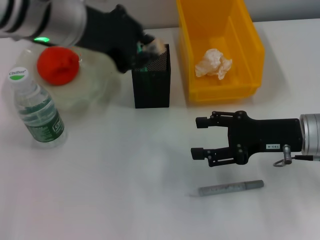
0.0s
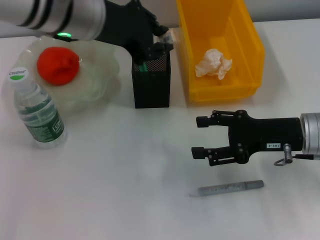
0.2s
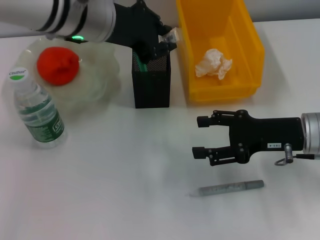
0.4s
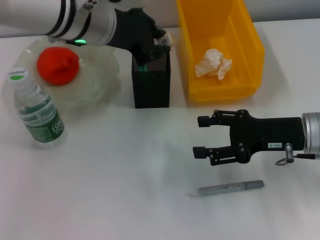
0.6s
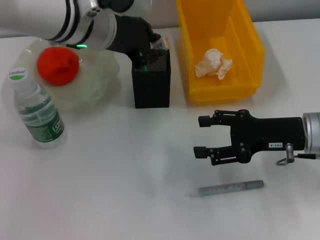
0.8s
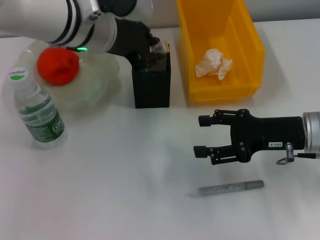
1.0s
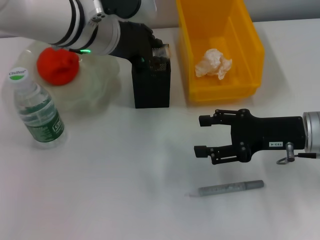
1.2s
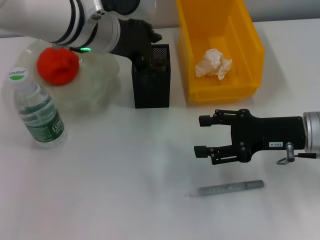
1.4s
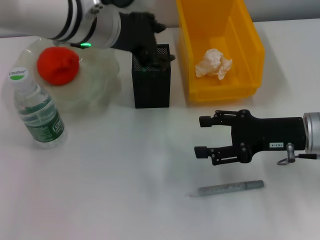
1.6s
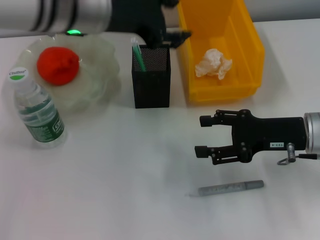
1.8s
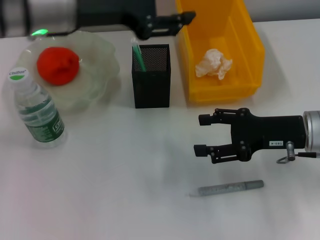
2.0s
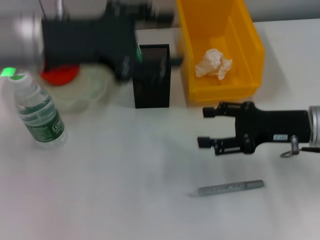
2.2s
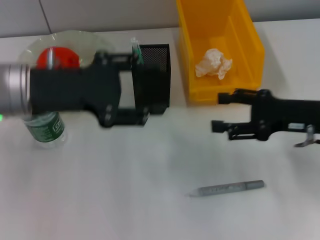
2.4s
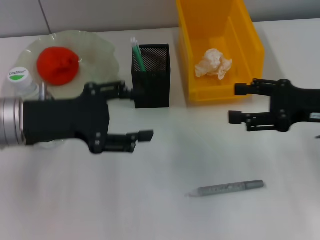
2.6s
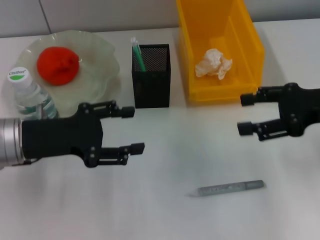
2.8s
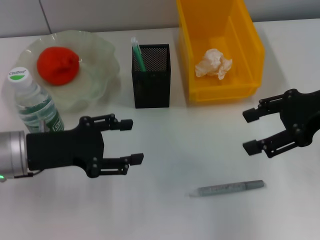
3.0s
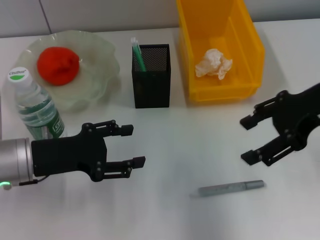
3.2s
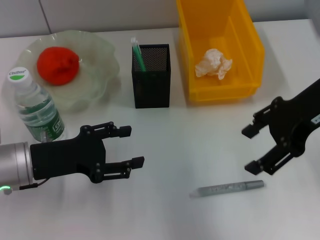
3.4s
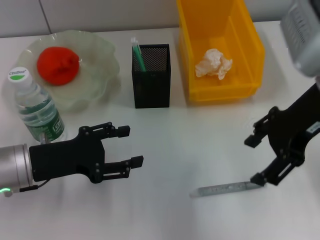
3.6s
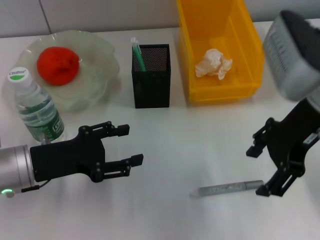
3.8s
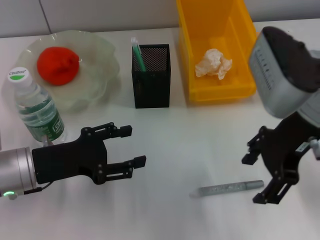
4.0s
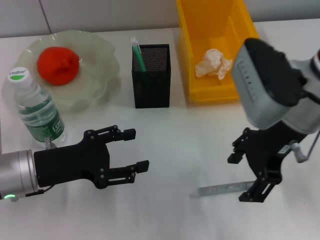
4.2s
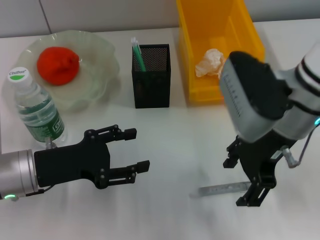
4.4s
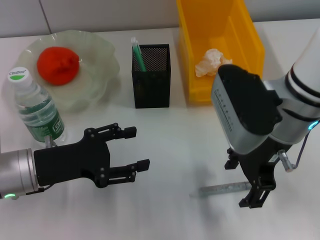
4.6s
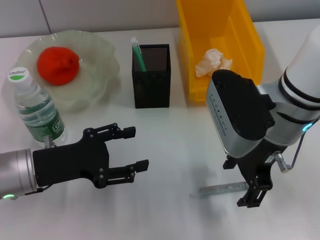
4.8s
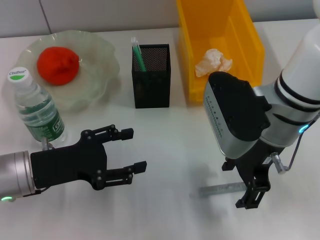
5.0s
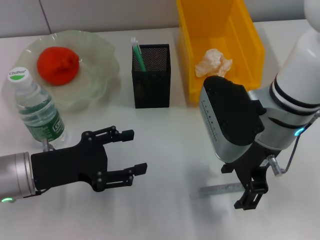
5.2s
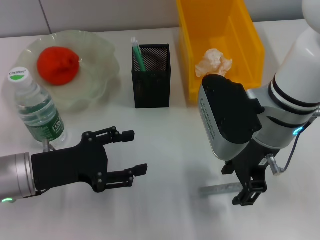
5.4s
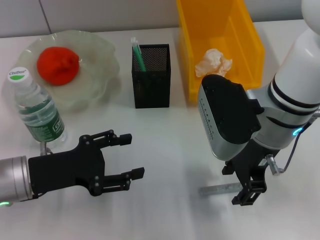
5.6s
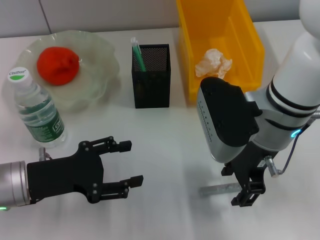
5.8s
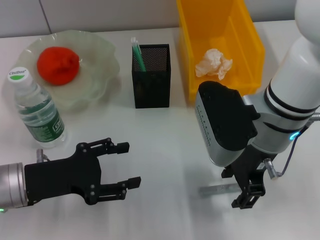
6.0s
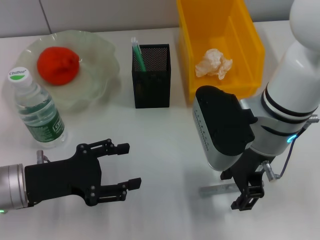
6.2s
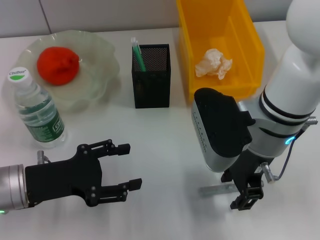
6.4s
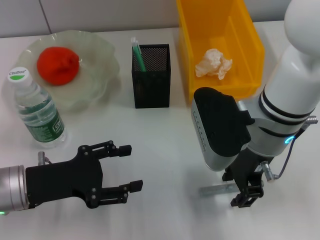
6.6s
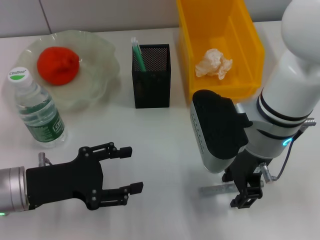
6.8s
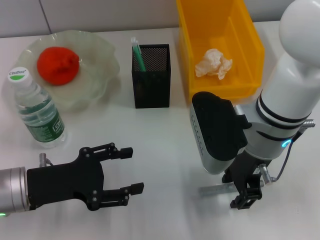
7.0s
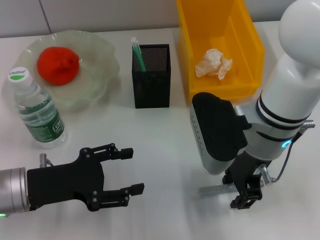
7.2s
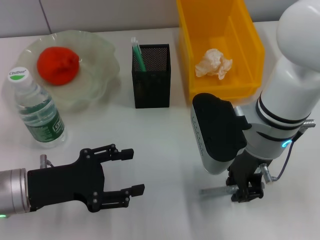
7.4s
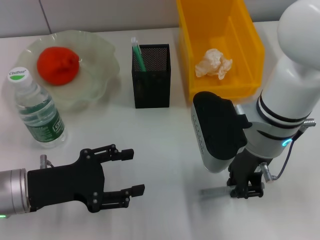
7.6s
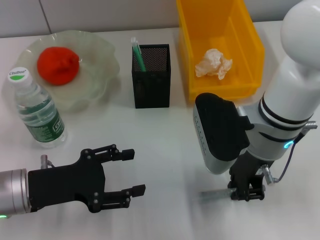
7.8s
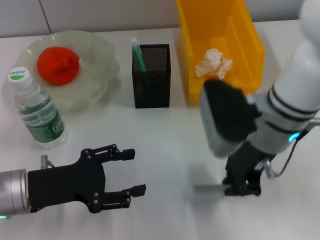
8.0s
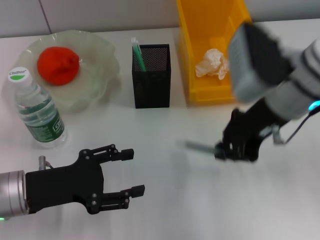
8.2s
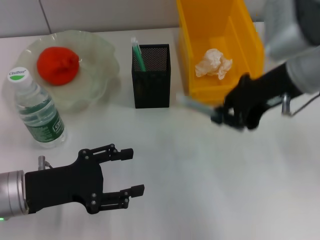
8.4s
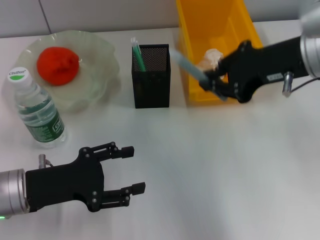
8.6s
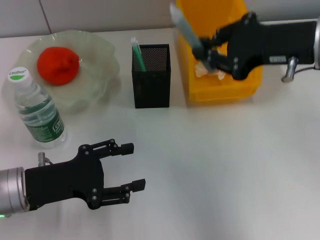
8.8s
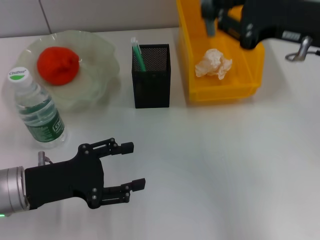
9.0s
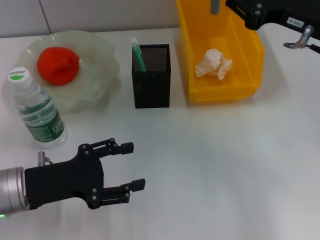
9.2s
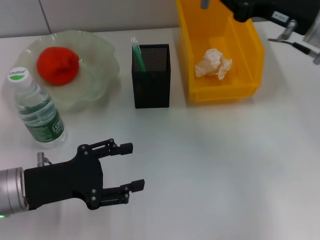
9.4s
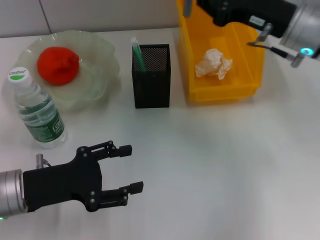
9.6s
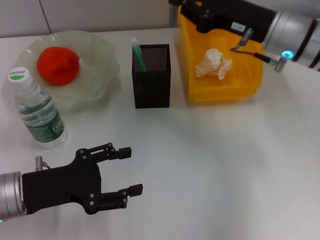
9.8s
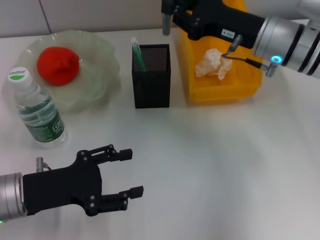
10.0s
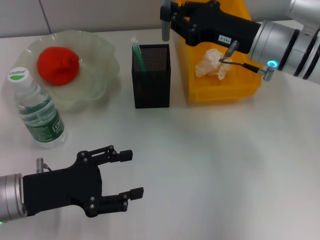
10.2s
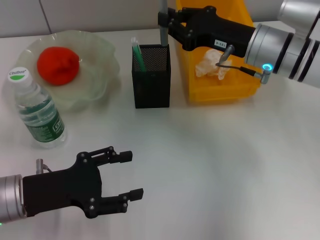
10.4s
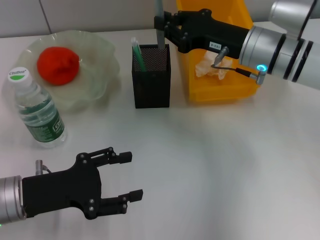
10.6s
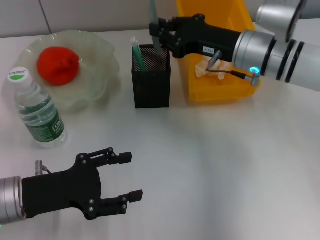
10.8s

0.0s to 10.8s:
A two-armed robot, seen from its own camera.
Step, 1.4s to 7.4s: Grab the gray glue with the right hand.
0.0s to 1.6s: The left gripper ends up approximately 5 cm from where it was, and opens its fingers.
1.6s to 3.0s: The right gripper is displaced upward by roughly 10 cm. The left gripper is displaced to the left, downward and backward by about 20 cm.
3.0s to 4.6s: The right gripper heads to the left, covering some 15 cm.
6.2s to 7.8s: The right gripper closes its fingers.
7.8s to 9.2s: The right gripper heads to the right and upward, covering roughly 15 cm.
9.2s to 10.8s: The right gripper is displaced to the left, downward and forward by some 10 cm.

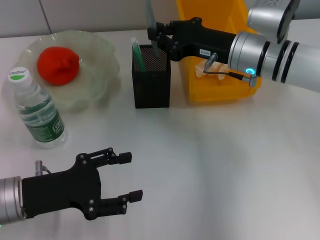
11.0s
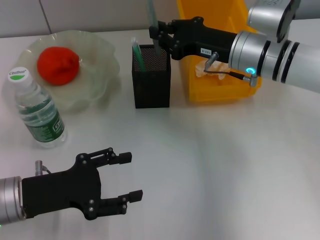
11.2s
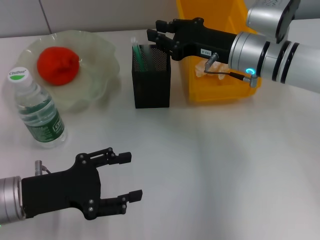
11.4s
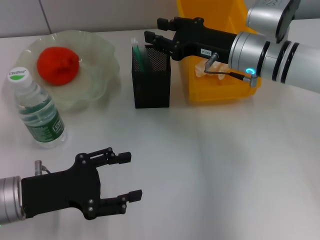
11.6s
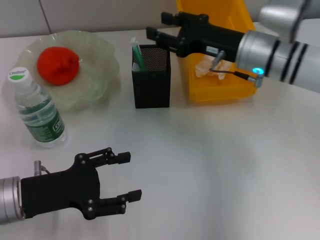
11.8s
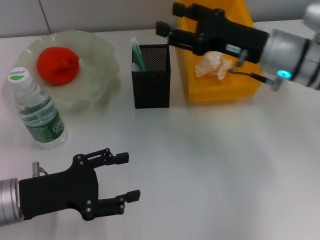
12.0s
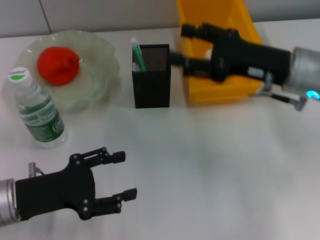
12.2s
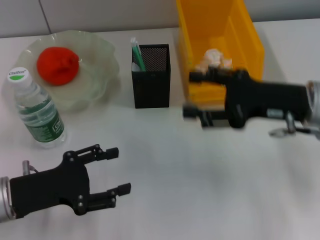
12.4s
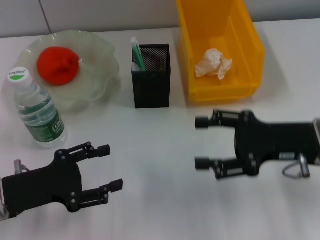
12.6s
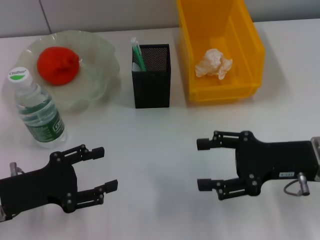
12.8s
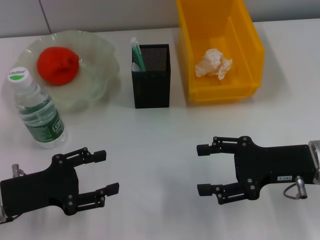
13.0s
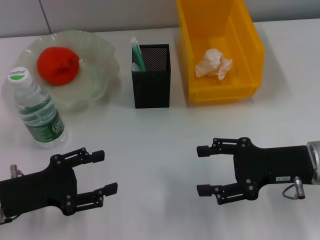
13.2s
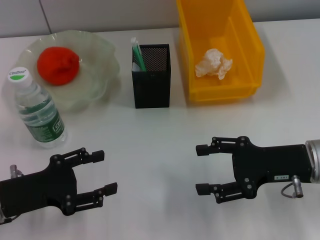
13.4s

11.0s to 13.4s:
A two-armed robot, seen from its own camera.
11.0s to 12.2s: The right gripper moves backward and to the right, roughly 10 cm, and opens its fingers.
12.2s to 13.4s: The right gripper goes about 10 cm backward and downward.
